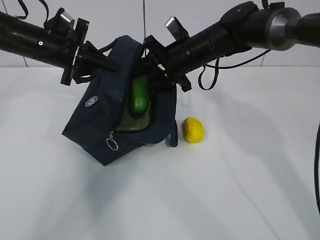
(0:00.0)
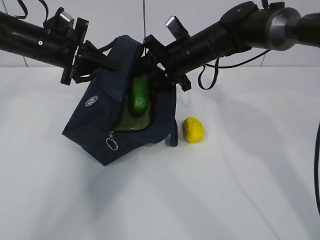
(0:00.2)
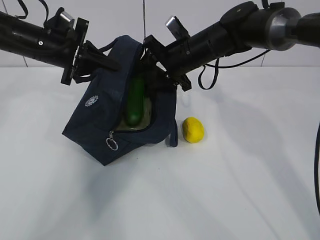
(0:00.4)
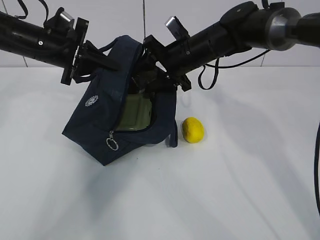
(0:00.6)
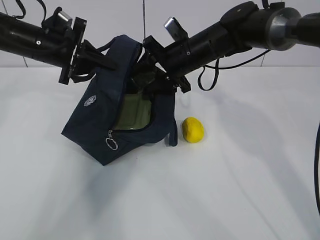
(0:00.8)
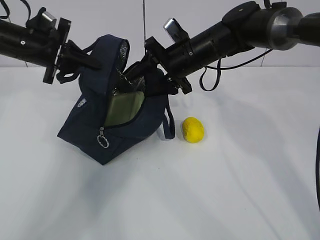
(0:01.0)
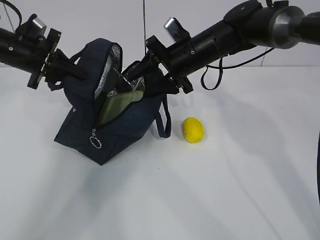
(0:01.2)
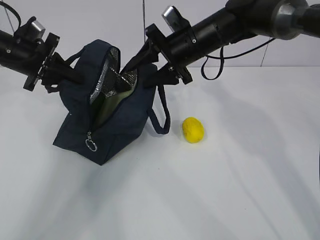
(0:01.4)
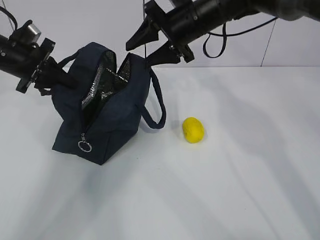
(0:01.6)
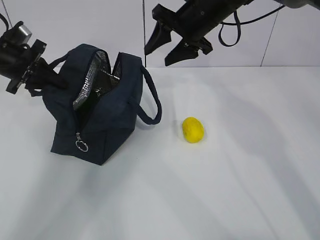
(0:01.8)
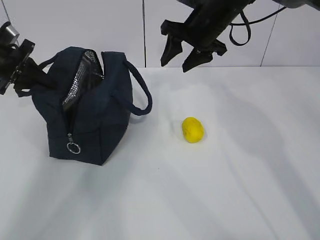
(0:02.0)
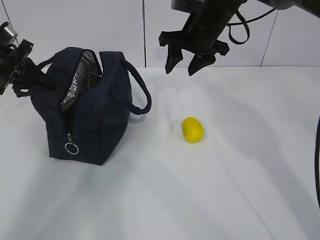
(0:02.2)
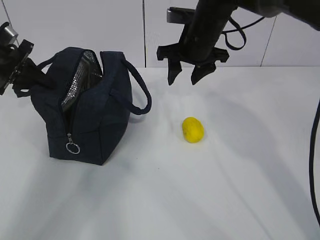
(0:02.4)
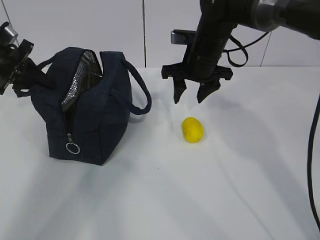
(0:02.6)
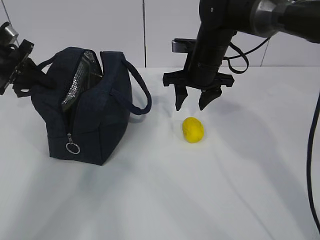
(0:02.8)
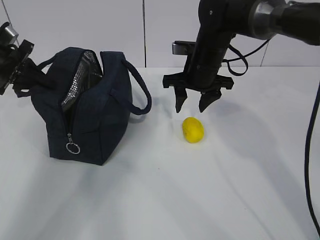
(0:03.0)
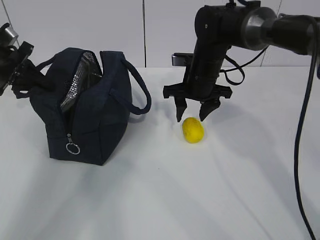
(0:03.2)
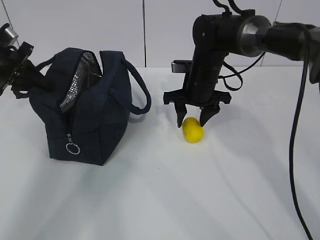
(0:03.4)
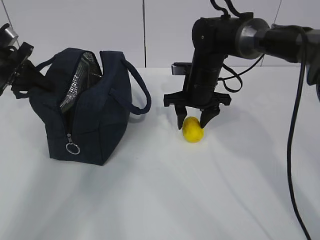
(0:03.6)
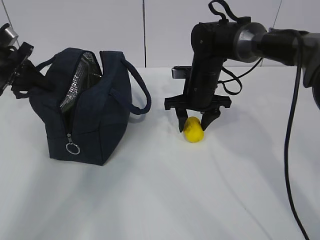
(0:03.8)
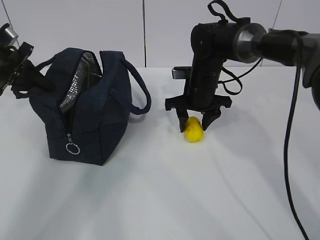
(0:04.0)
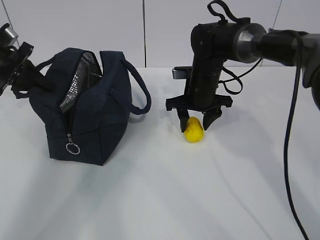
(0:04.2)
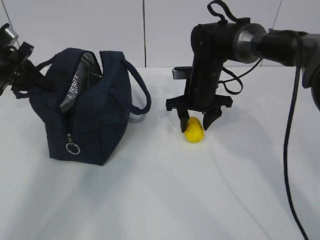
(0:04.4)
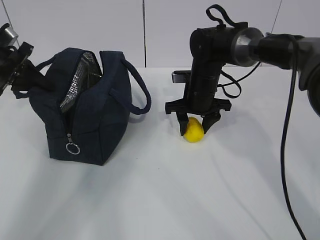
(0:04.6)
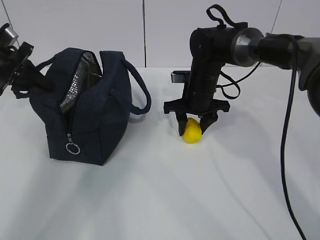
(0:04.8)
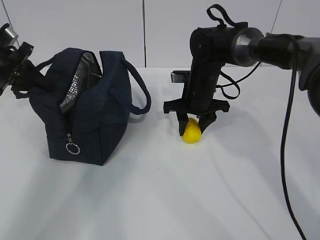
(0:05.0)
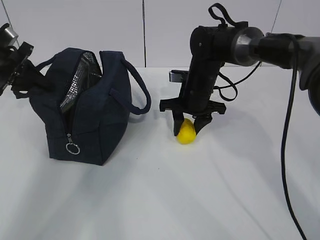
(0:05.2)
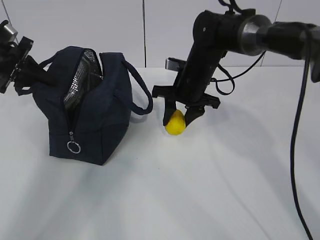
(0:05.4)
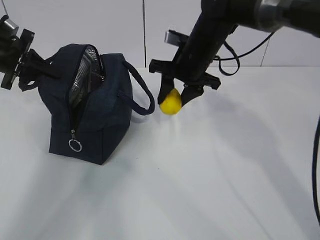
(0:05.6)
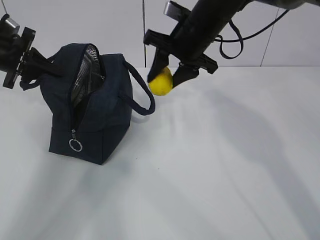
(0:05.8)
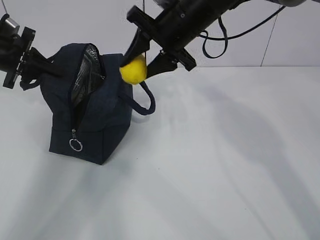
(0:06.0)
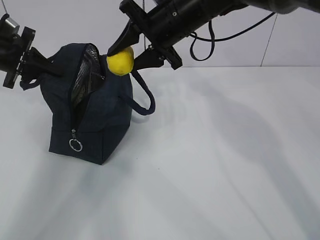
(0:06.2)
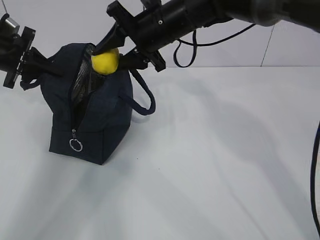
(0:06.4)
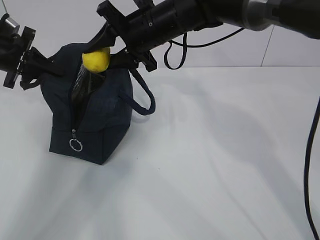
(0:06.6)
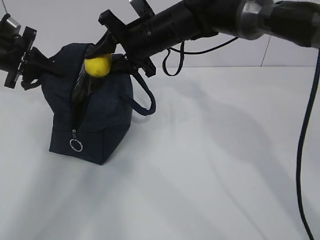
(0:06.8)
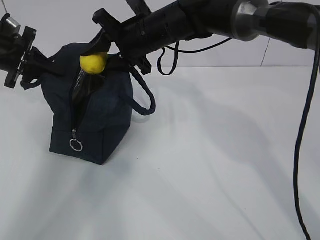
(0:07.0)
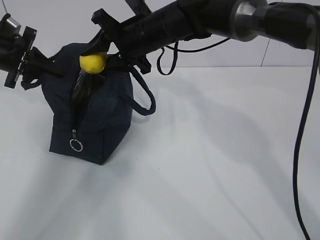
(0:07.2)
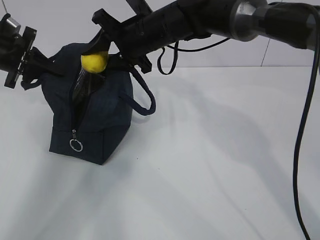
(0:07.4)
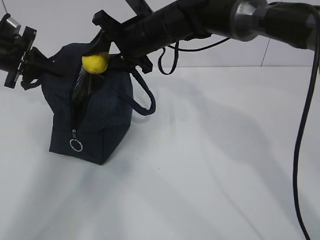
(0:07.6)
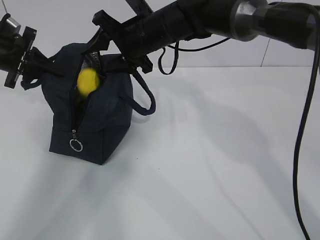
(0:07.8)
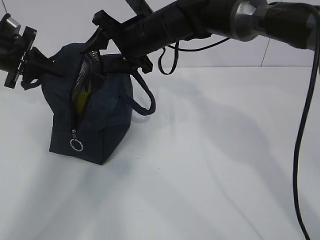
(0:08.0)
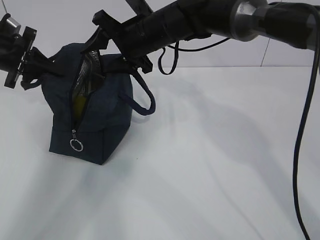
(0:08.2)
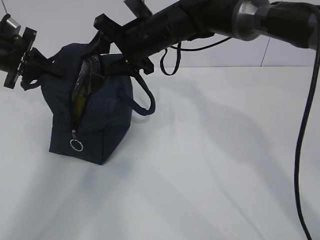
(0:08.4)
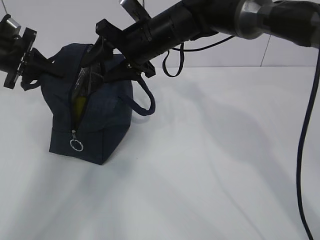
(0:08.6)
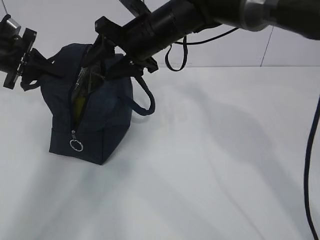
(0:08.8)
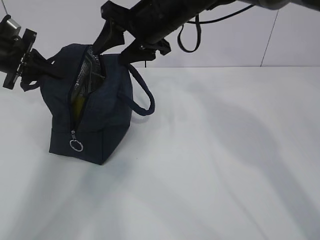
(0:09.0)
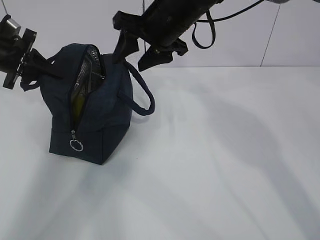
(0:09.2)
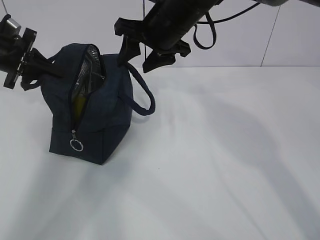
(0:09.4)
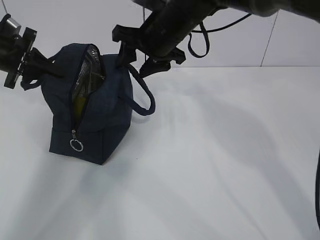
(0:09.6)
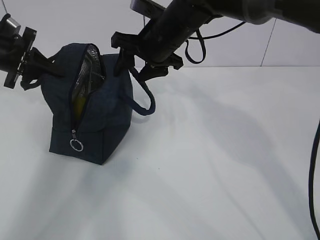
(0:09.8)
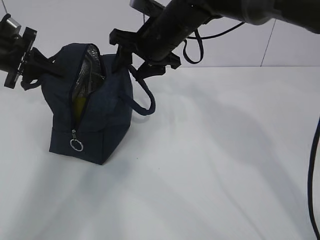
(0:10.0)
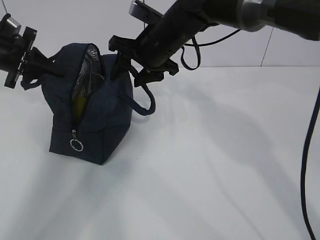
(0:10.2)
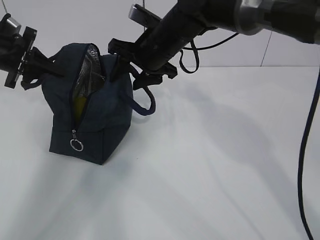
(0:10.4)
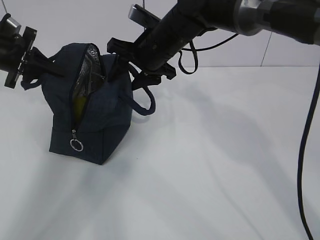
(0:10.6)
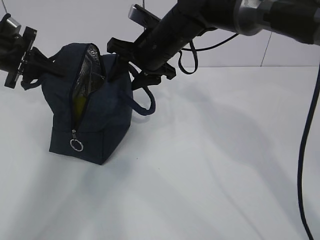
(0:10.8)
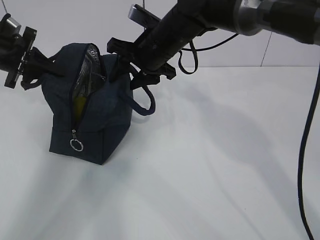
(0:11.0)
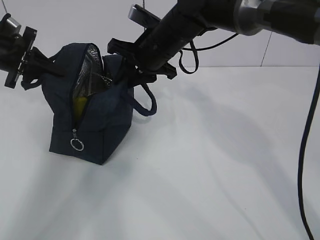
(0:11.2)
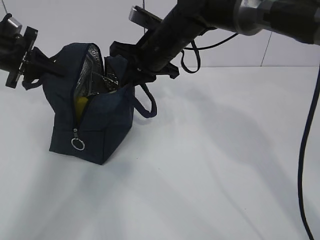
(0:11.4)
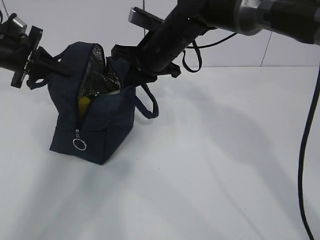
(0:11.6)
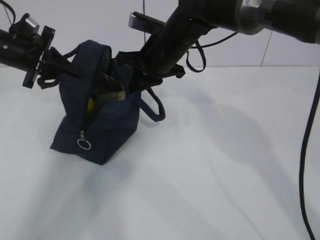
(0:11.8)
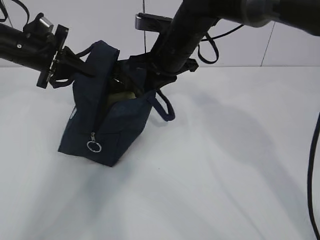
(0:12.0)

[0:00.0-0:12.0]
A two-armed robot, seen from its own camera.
Step, 0:00.0 to 0:01.4: Secure the lunch bag with your left hand.
Step, 0:01.6 to 0:04.6: Grab the lunch bag with your right hand.
Step, 0:04.8 to 0:06.2: Move the lunch bag to the right.
0:00.0 to 0:01.6: The right gripper goes approximately 5 cm upward, while the left gripper heads to the left, covering some 5 cm.
0:01.6 to 0:03.0: The right gripper is displaced downward by roughly 5 cm.
0:03.0 to 0:04.4: The right gripper heads downward, covering approximately 5 cm.
0:04.4 to 0:06.0: The right gripper heads upward, covering approximately 15 cm.
0:06.0 to 0:07.6: The right gripper shifts roughly 5 cm to the left.
0:07.6 to 0:09.0: The right gripper ends up about 5 cm from where it was.
0:09.0 to 0:10.4: The right gripper shifts approximately 5 cm downward.
0:10.4 to 0:12.0: The right gripper closes up, while the left gripper moves to the right, some 5 cm.

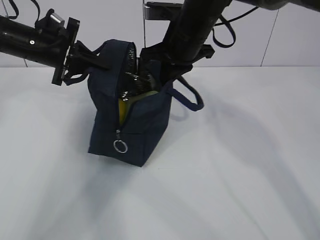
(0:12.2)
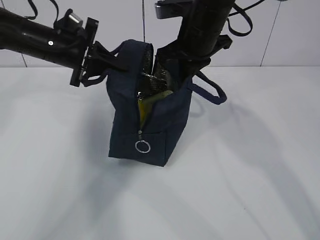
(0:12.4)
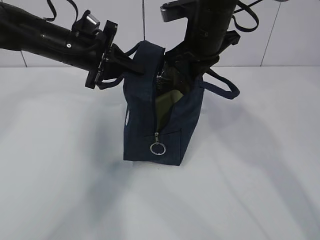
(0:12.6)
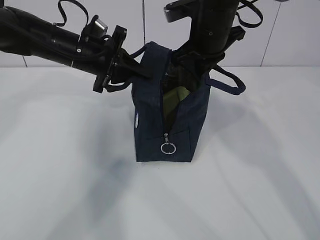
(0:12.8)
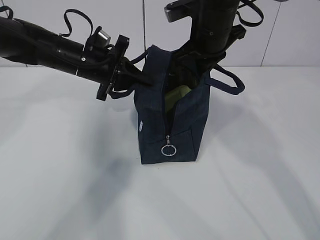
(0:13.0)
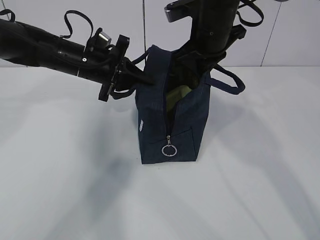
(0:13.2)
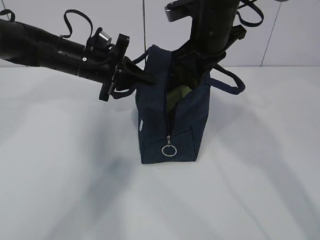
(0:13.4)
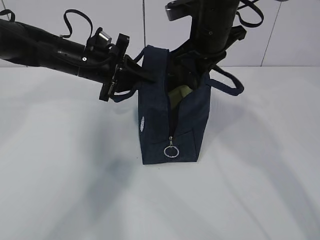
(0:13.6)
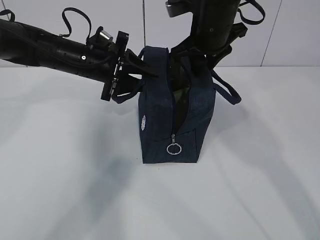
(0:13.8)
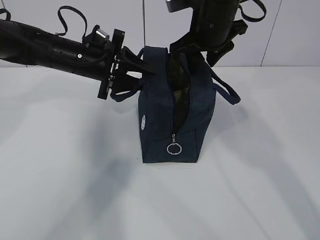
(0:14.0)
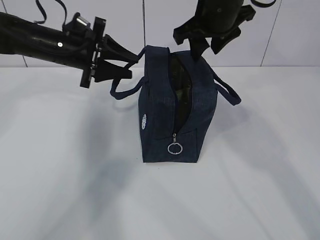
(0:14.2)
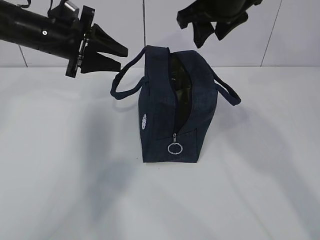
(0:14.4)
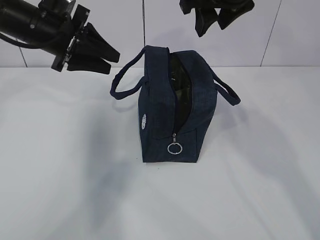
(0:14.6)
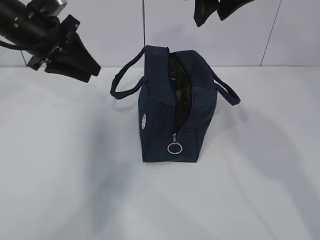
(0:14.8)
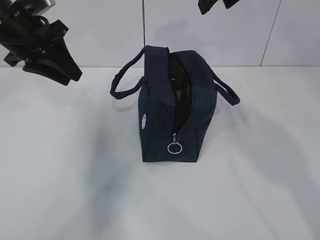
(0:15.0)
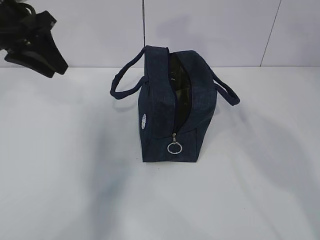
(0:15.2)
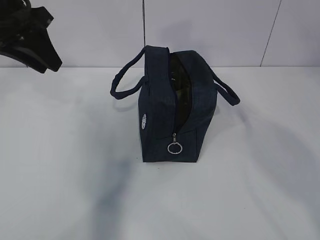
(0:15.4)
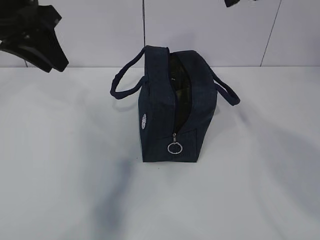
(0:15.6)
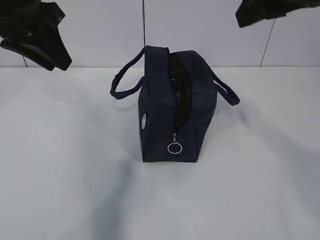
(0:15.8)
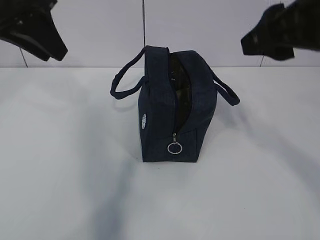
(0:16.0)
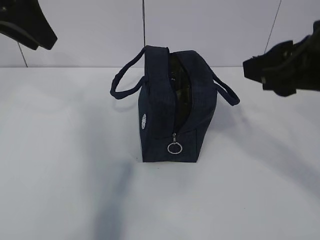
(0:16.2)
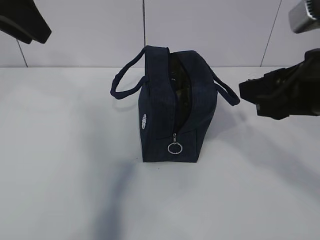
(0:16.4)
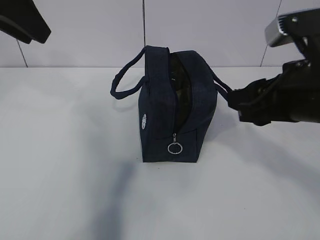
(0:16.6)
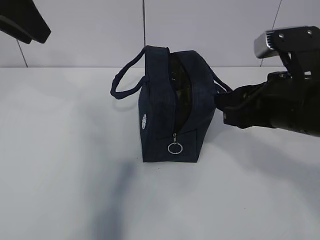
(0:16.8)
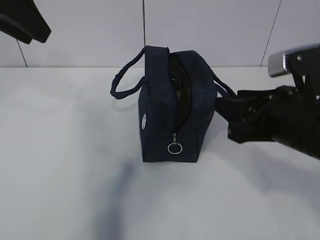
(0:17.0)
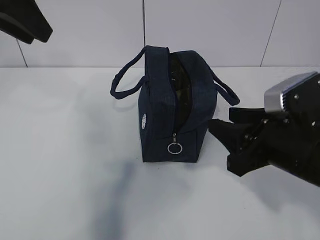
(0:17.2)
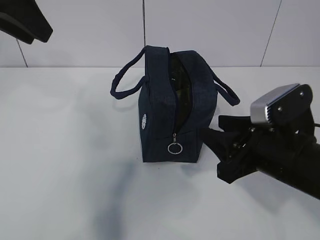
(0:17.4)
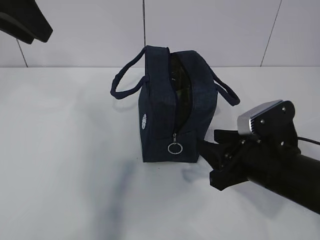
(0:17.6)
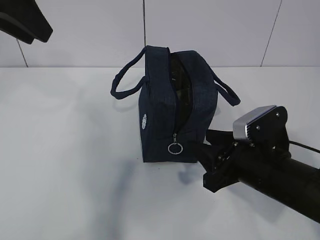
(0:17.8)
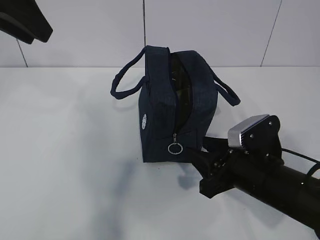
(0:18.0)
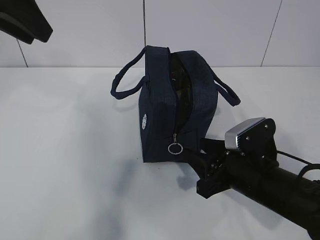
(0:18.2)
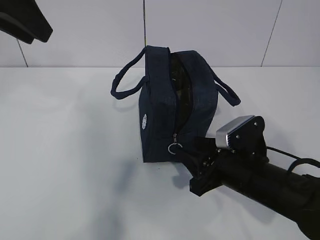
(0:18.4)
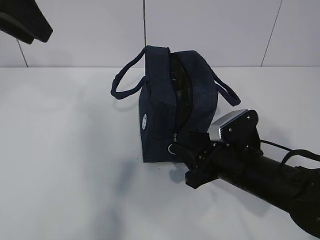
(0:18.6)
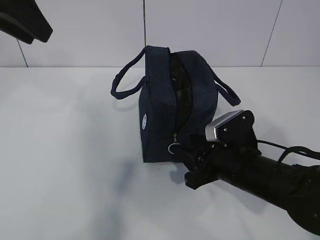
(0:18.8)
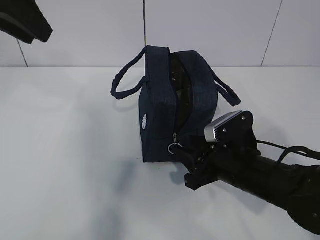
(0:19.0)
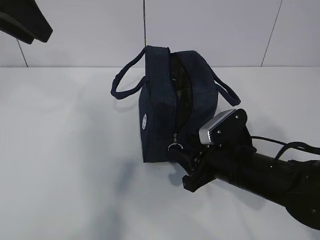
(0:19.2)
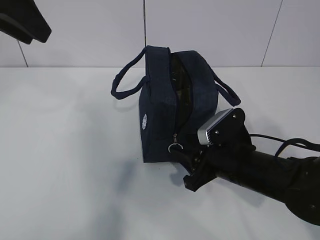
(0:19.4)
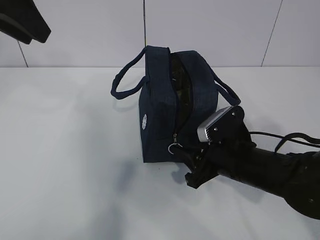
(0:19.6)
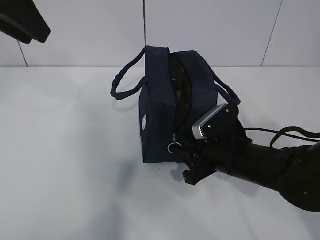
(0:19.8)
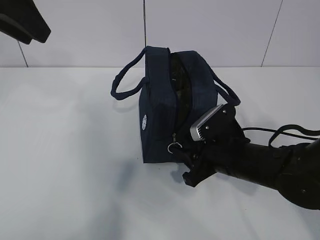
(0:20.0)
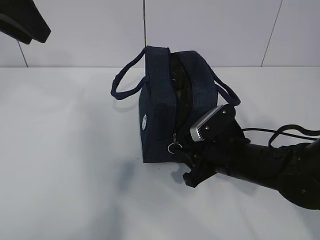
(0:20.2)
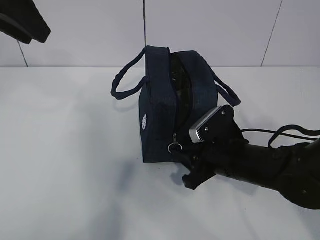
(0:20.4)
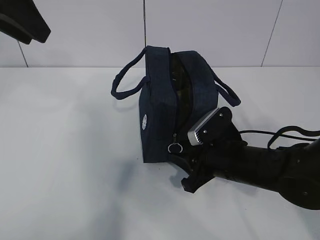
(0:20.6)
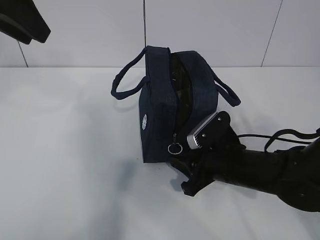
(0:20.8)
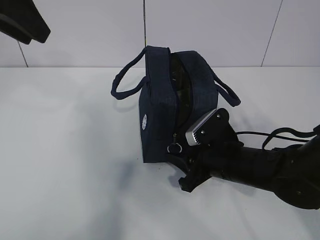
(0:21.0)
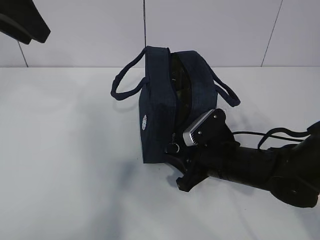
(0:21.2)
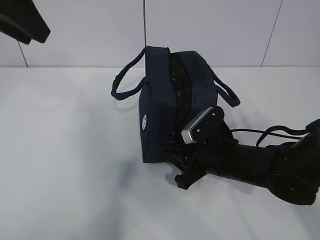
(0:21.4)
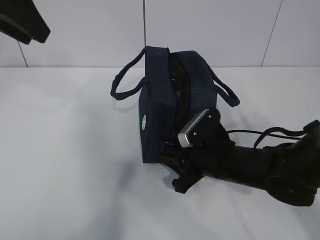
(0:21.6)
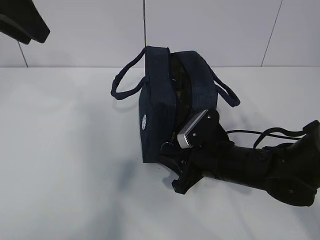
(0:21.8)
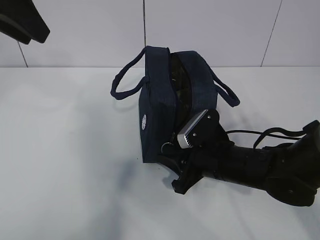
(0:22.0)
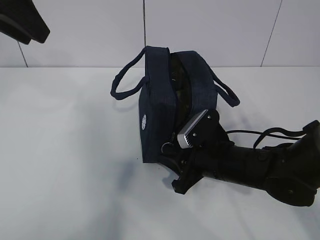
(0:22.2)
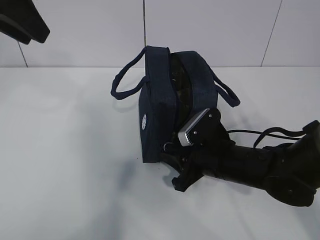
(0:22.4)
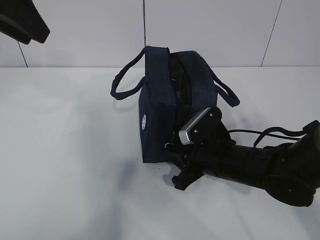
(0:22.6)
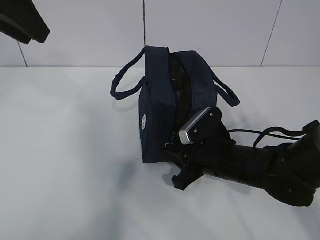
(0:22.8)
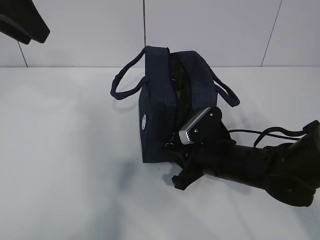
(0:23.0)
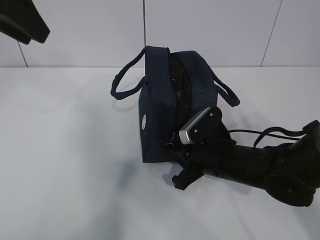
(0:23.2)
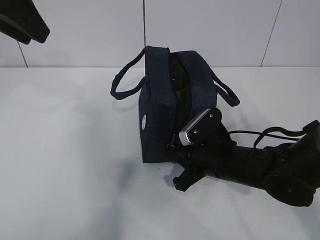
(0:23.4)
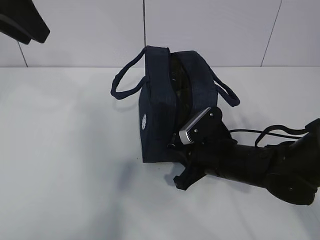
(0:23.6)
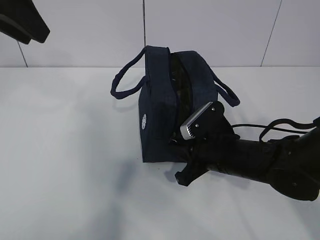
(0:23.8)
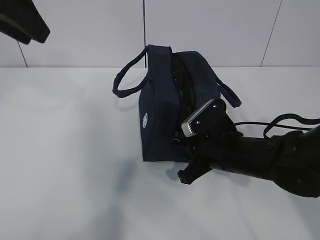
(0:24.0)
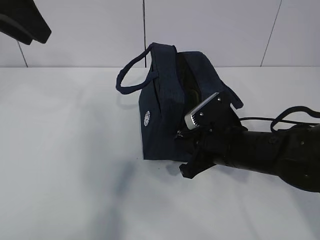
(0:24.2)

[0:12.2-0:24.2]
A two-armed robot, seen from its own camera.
Step, 0:12.2 to 0:22.6: Grab the lunch bag with your left hand.
0:12.2 to 0:13.8: The left gripper travels to the right by roughly 10 cm, and opens. The right gripper opens up.
0:13.8 to 0:15.2: The right gripper goes some 15 cm upward and backward. The left gripper moves upward, to the left and backward, approximately 15 cm.
0:15.2 to 0:16.6: The left gripper travels upward and backward by approximately 10 cm; the right gripper heads downward and backward, covering some 20 cm.
0:16.6 to 0:18.2: The right gripper is displaced downward by about 15 cm.
0:18.2 to 0:19.8: The grippers move only a little.
0:19.8 to 0:21.2: The grippers move only a little.
0:21.2 to 0:22.6: Both grippers stay put.
0:22.6 to 0:24.2: The right gripper closes.
